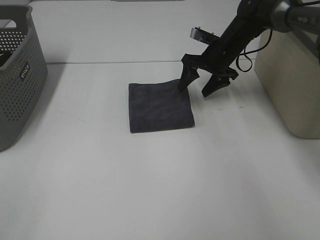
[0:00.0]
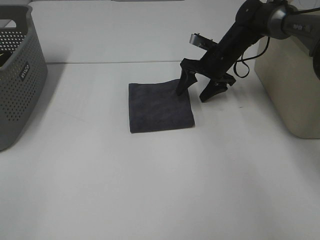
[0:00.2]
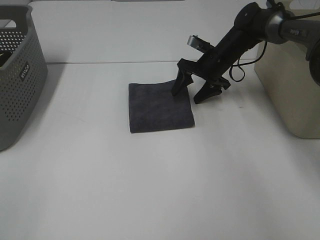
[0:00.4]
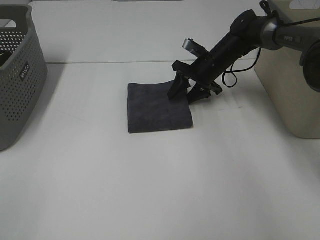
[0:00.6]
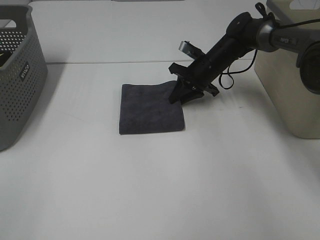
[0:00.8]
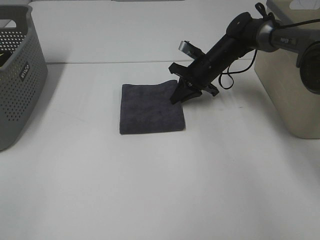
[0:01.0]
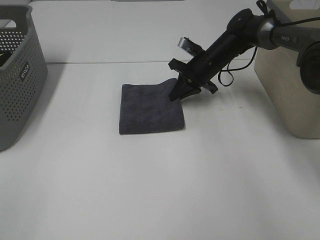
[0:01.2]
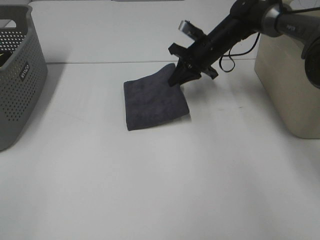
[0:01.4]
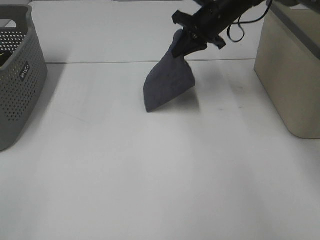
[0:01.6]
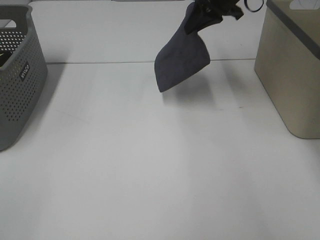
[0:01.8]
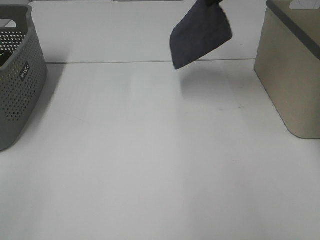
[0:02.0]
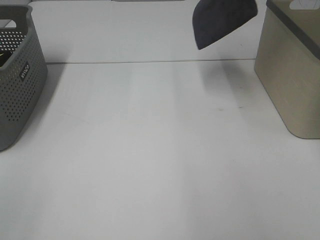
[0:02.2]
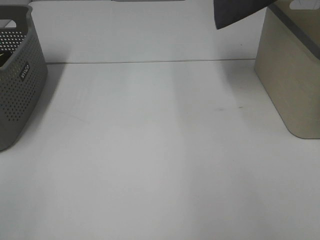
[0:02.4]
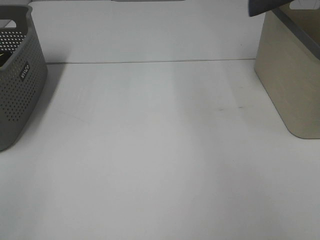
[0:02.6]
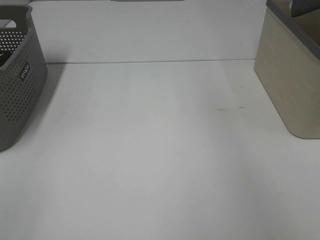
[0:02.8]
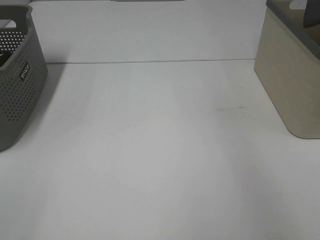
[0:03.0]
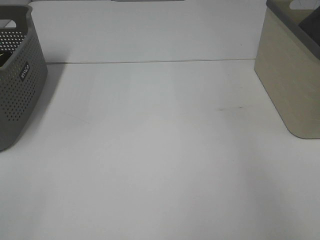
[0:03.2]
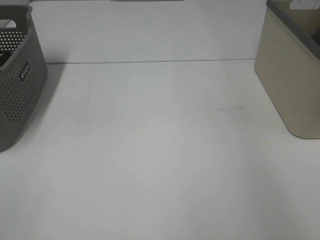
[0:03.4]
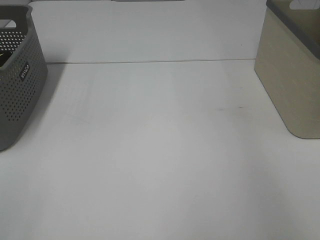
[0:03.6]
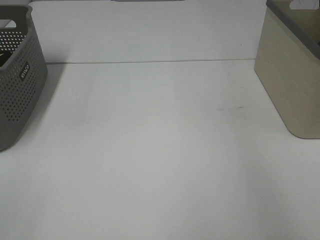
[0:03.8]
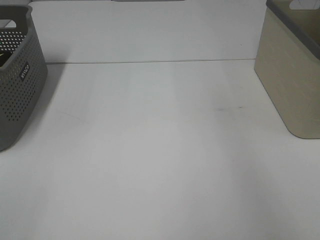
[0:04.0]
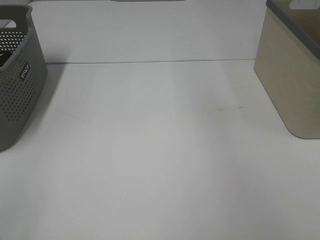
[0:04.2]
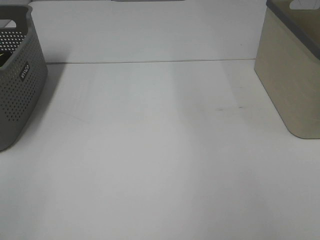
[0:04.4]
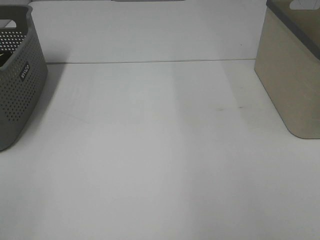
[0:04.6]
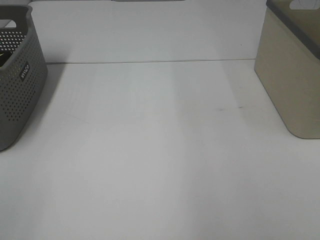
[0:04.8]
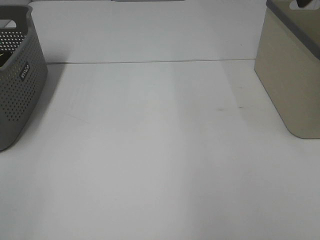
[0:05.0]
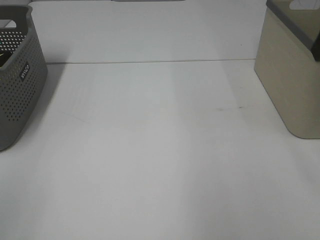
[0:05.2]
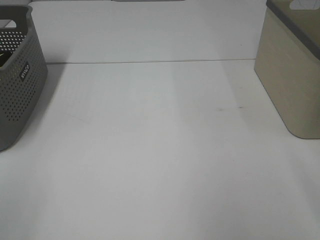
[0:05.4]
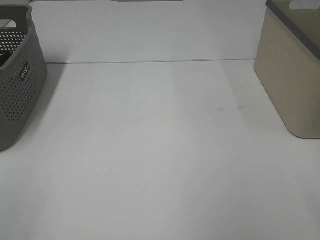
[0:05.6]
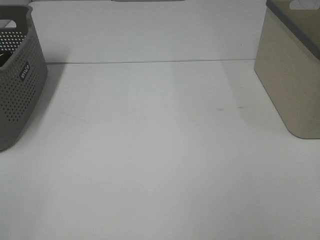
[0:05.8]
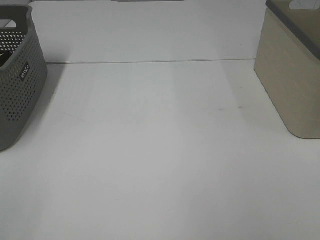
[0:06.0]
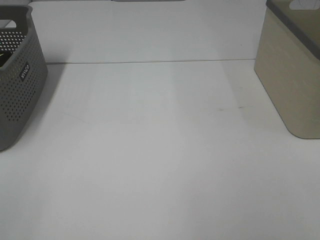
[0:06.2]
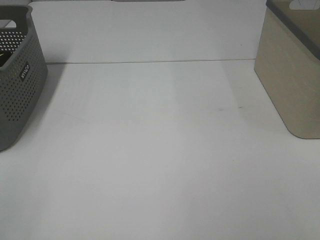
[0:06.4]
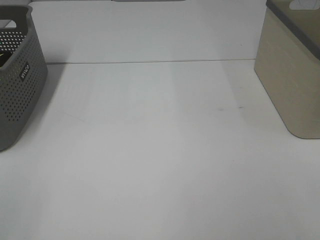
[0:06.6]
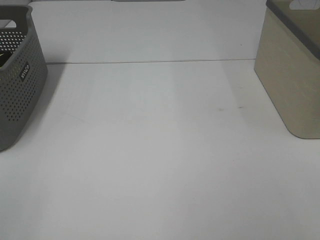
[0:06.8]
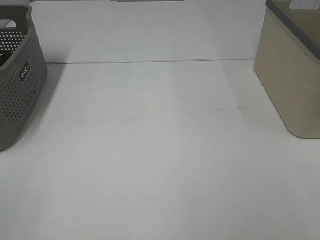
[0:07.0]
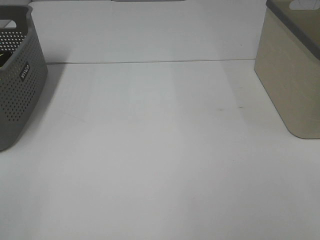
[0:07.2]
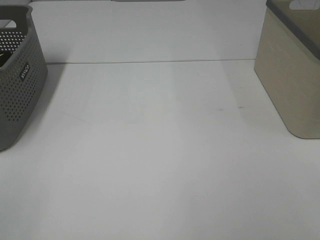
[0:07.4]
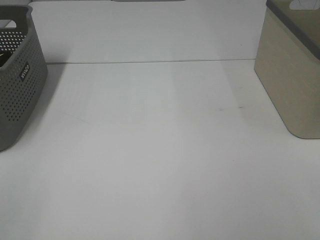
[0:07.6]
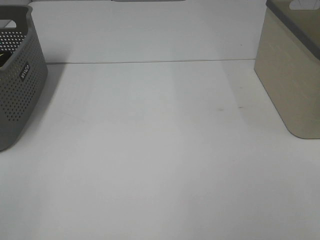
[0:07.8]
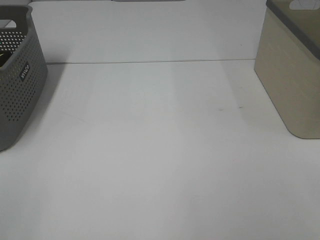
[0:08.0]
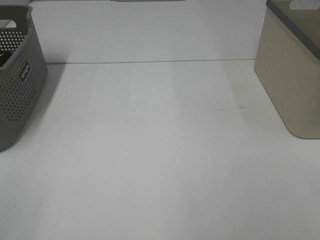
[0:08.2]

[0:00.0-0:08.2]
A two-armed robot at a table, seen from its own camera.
Step, 0:01.2 to 0:03.6: Right hand: place the grey towel in right basket.
0:00.0 to 0:01.6: The right gripper is displaced upward by about 10 cm, and closes up.
0:01.6 to 0:03.2: The right gripper travels to the right and upward by some 30 cm.
0:03.2 to 0:05.0: The right gripper shifts roughly 20 cm backward and to the left, and opens its fingers.

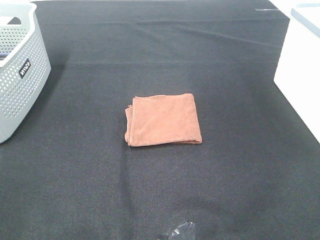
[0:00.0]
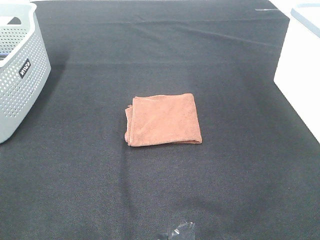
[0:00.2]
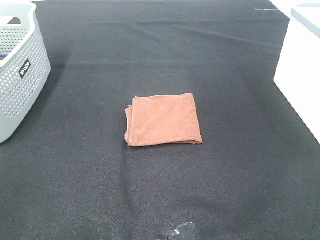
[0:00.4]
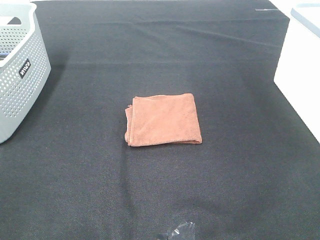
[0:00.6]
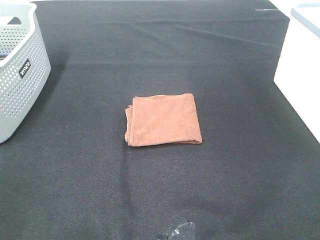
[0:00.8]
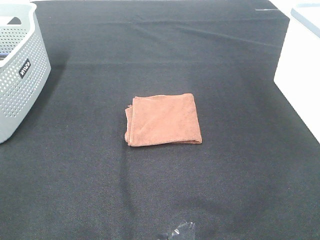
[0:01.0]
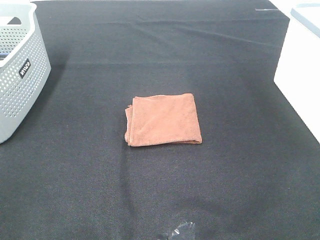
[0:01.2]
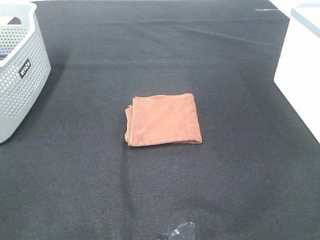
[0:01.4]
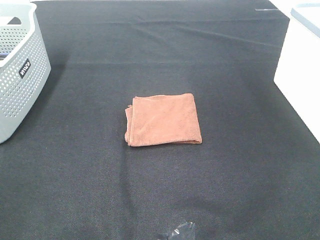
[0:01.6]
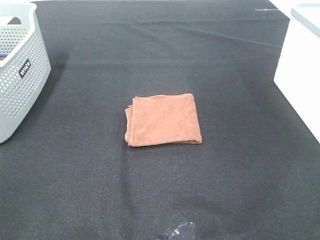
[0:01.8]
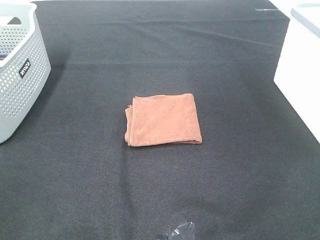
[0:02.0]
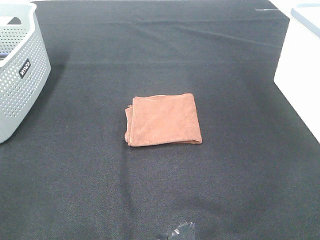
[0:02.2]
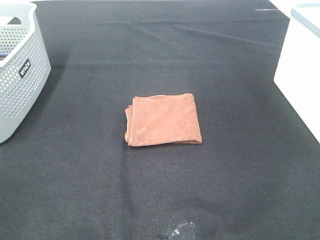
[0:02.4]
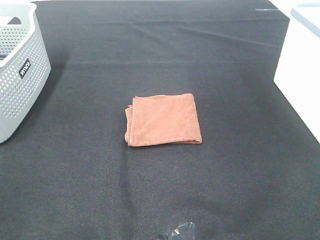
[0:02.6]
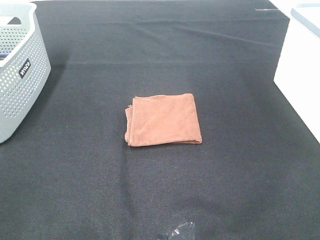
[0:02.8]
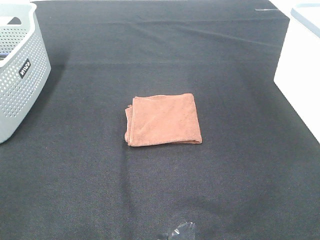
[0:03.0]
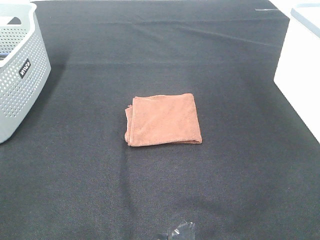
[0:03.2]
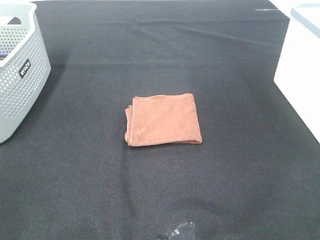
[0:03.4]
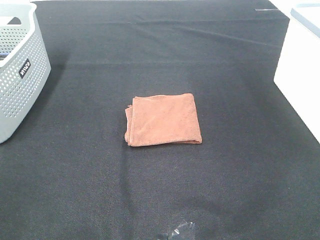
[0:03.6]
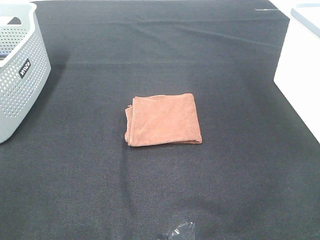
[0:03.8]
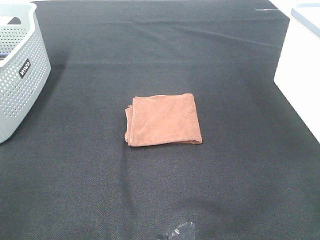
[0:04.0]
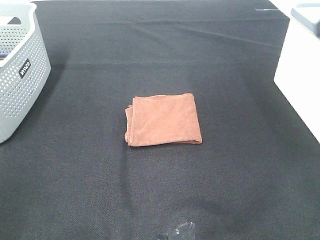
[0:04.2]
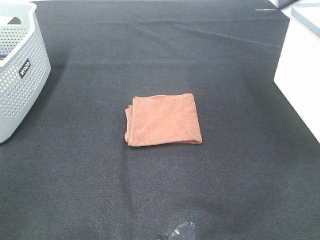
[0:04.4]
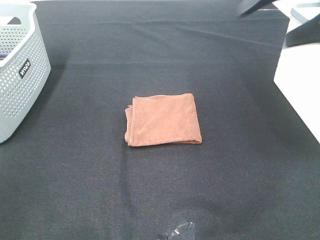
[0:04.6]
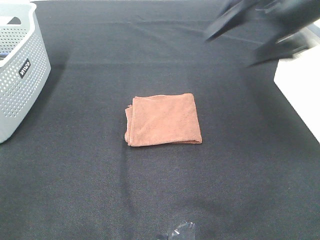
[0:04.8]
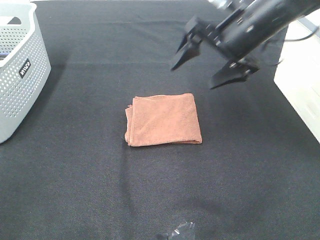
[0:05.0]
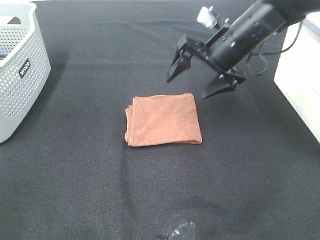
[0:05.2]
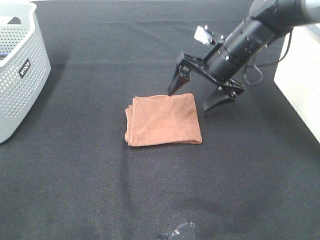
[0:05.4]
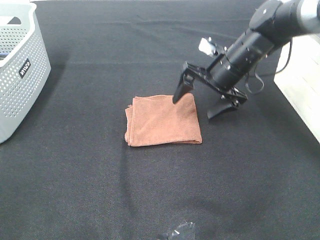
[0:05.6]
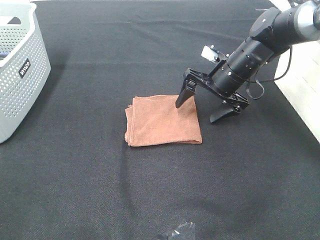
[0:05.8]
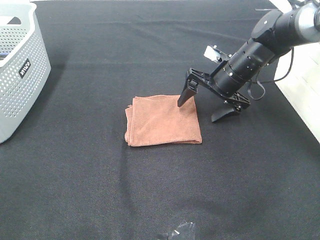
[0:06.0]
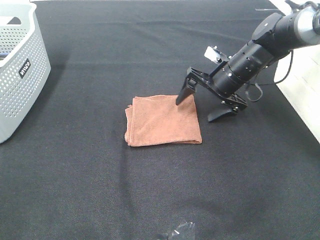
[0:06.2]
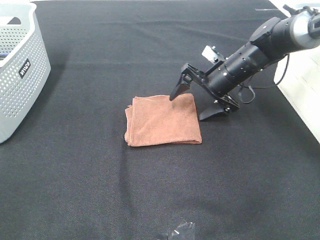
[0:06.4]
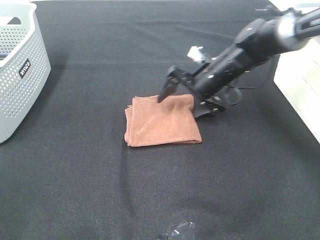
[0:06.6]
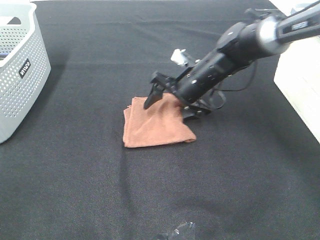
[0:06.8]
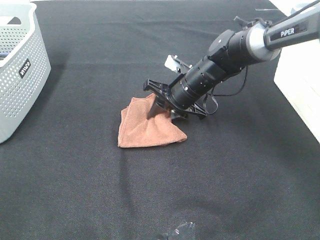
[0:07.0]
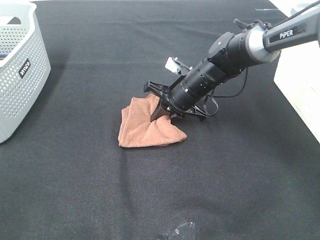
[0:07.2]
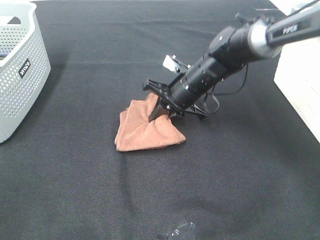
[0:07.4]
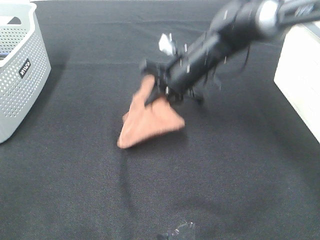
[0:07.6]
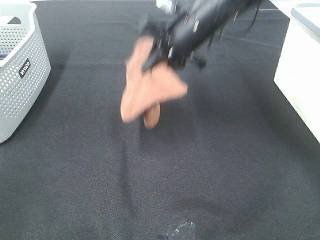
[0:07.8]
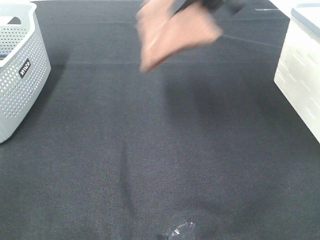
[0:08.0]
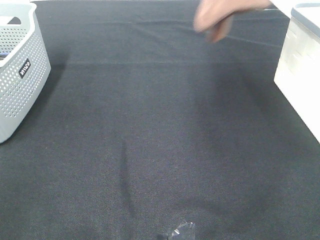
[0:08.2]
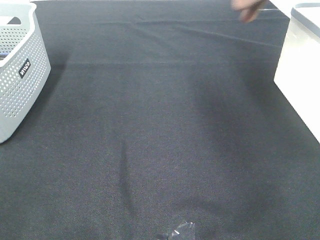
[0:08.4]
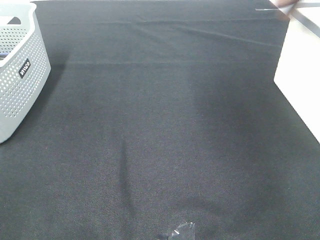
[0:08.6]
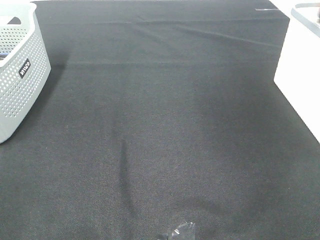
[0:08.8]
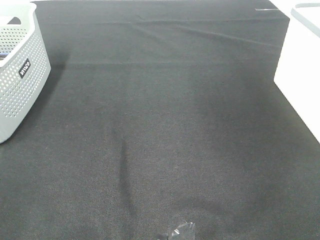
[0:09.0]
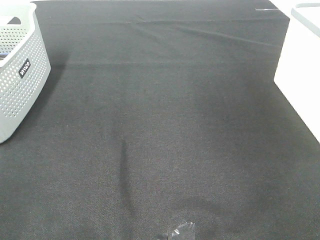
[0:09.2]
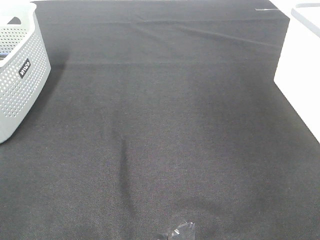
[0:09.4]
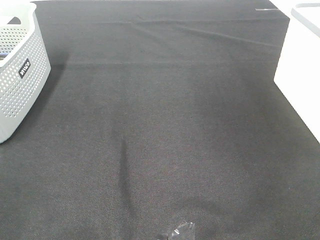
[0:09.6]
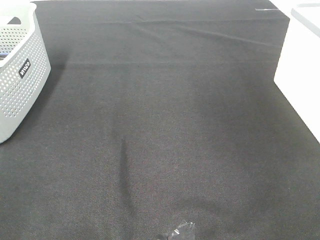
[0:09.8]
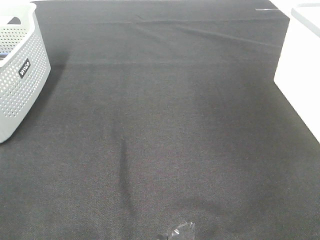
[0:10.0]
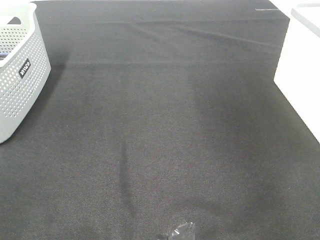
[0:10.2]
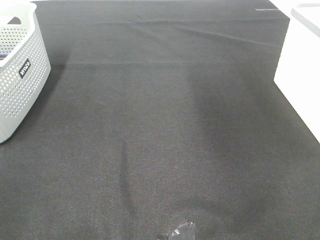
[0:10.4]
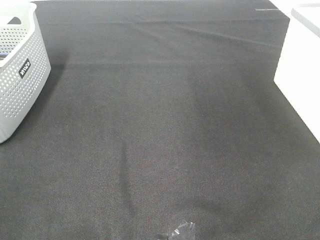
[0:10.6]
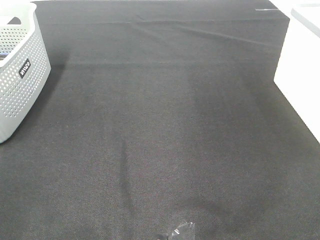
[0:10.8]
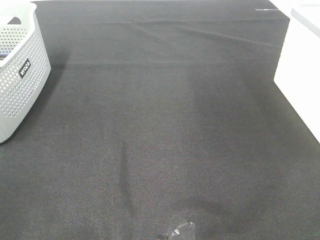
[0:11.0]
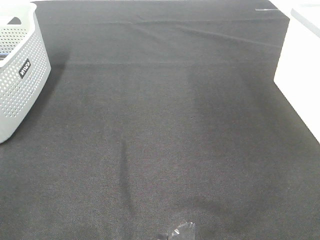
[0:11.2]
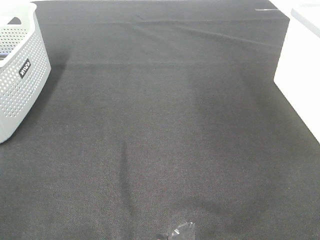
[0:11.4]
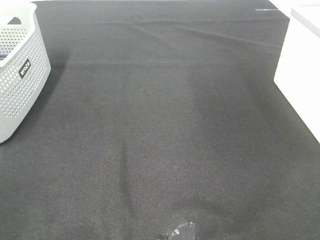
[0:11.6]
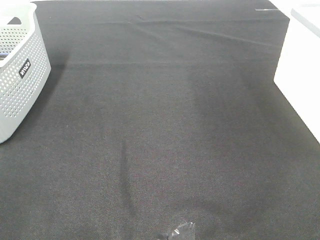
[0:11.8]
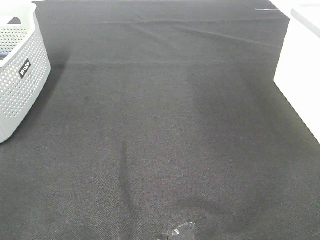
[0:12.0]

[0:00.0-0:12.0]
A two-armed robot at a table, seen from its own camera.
Step, 0:00.0 to 0:07.2: Right hand: grab the folded brown towel.
Step, 0:07.4 to 0:09.8: Right hand: place the brown towel in right basket.
0:00.0 to 0:03.0: Both grippers stay put.
0:04.4 to 0:06.0: The right gripper is displaced downward and forward by some 30 cm.
0:06.0 to 0:07.6: The right gripper goes about 10 cm to the left, and closes up.
0:07.6 to 0:09.0: The right gripper shifts approximately 40 cm to the right and upward.

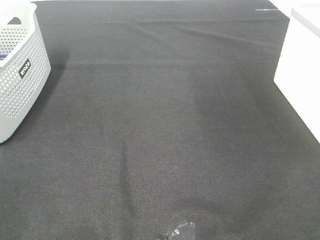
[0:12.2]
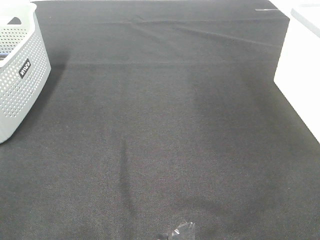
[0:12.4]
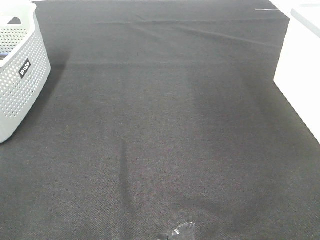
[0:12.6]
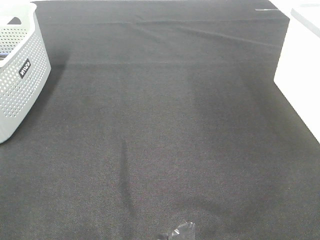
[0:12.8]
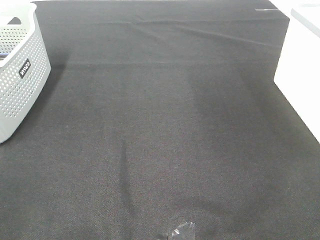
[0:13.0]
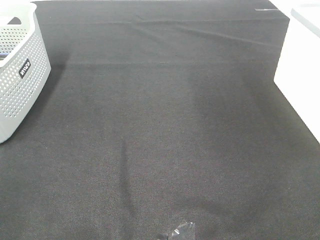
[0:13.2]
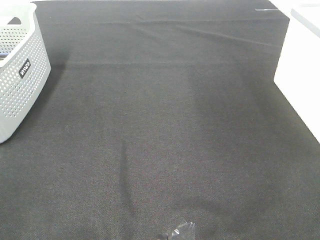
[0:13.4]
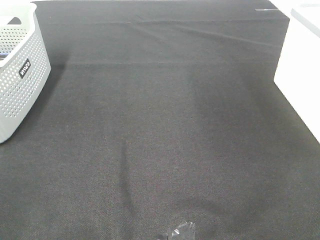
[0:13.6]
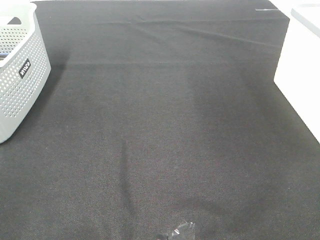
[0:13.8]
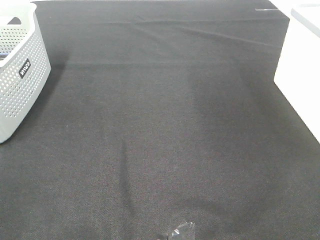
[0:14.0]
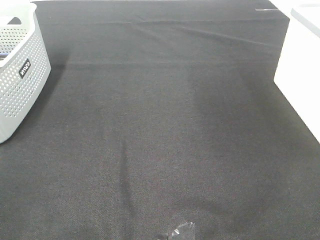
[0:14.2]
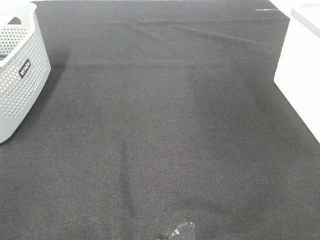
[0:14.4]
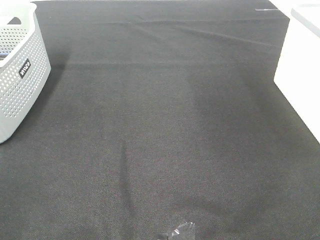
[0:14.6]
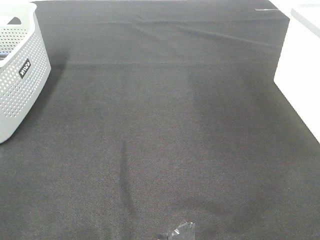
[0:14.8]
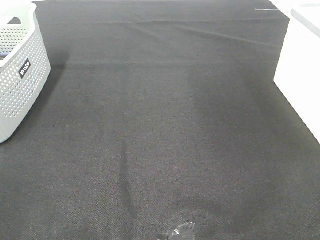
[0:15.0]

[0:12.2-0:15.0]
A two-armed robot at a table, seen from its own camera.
0:13.6 to 0:15.0: Both grippers stay about where they are.
